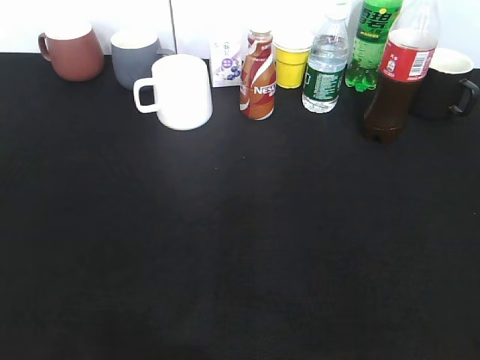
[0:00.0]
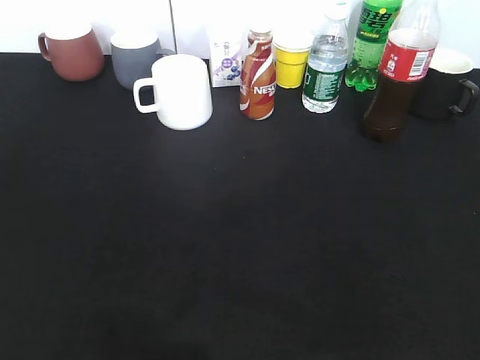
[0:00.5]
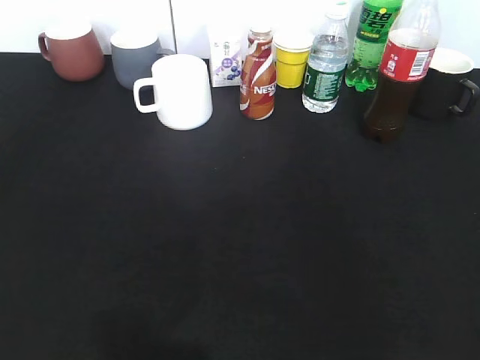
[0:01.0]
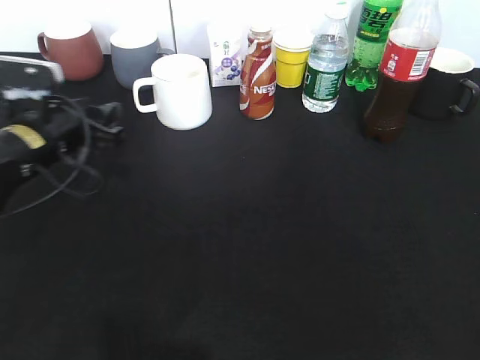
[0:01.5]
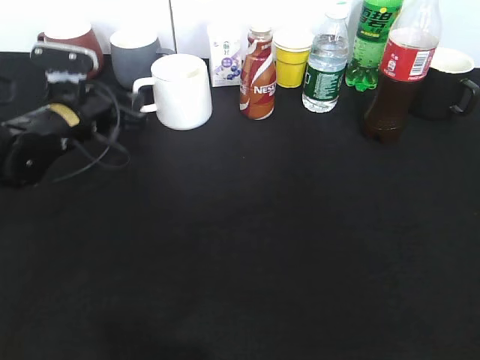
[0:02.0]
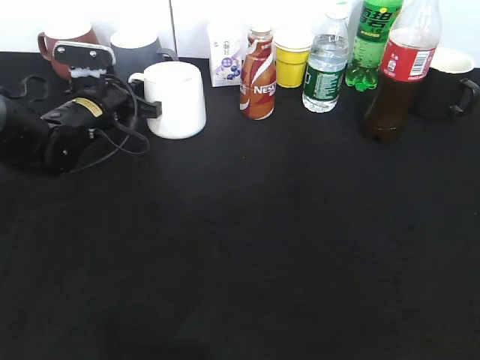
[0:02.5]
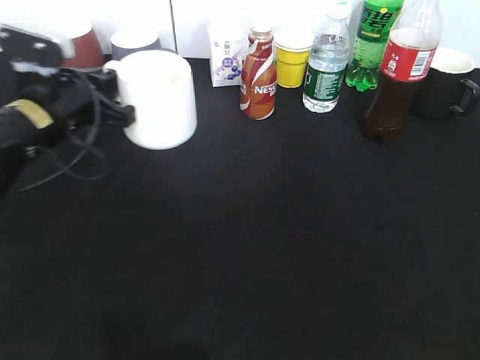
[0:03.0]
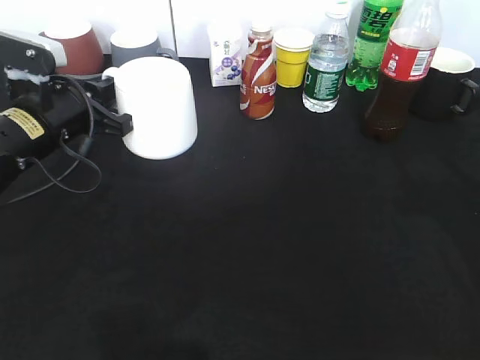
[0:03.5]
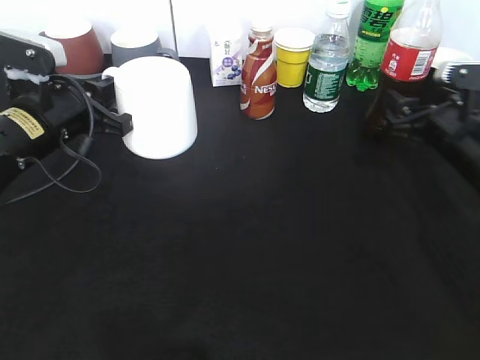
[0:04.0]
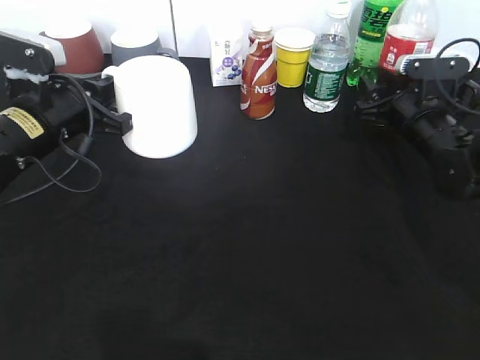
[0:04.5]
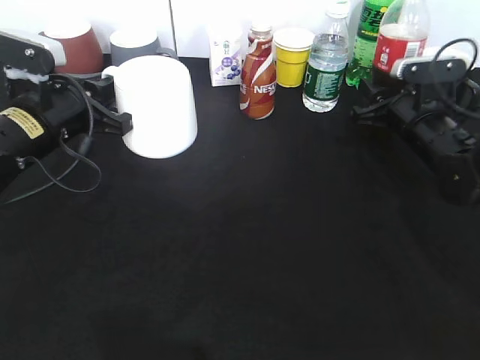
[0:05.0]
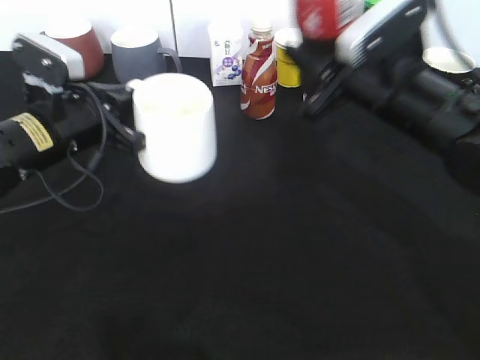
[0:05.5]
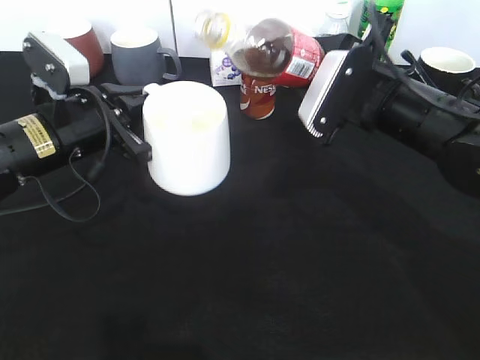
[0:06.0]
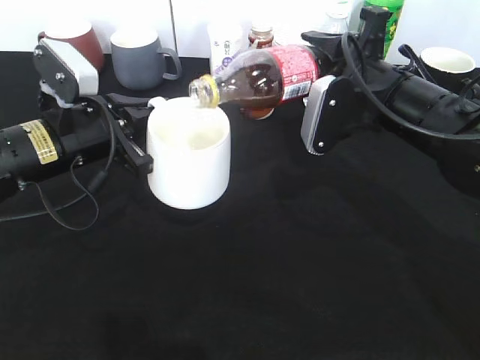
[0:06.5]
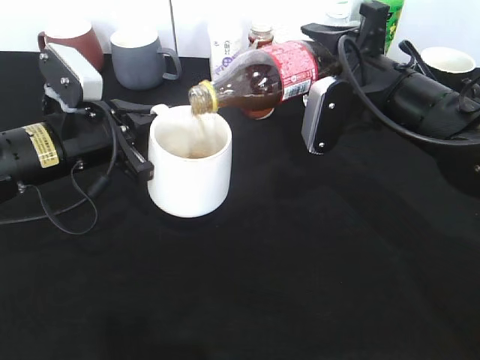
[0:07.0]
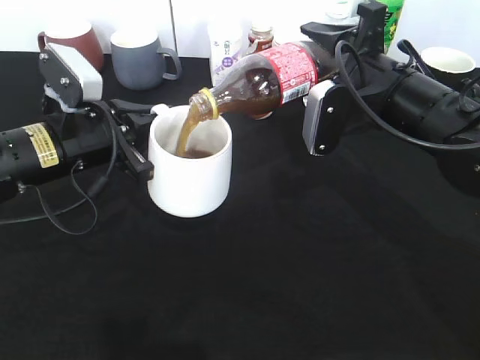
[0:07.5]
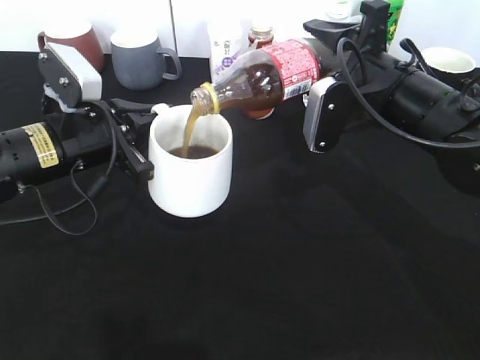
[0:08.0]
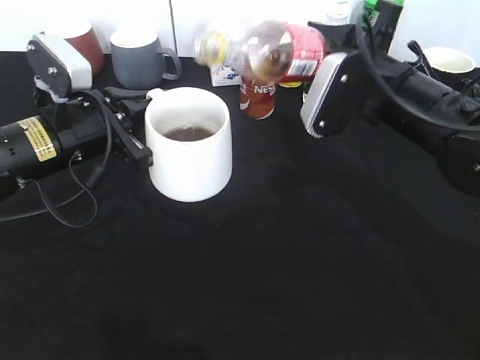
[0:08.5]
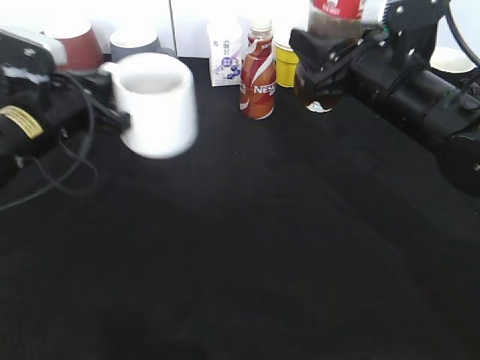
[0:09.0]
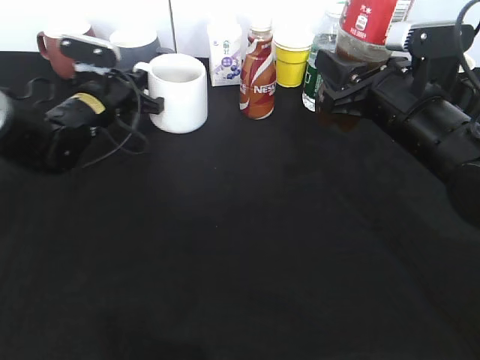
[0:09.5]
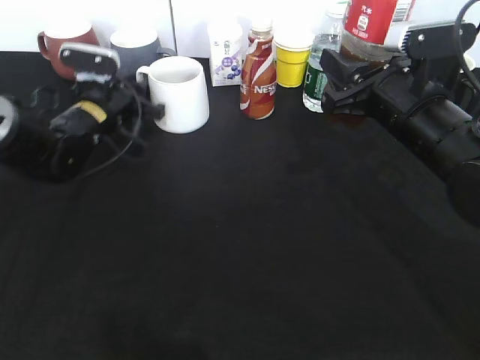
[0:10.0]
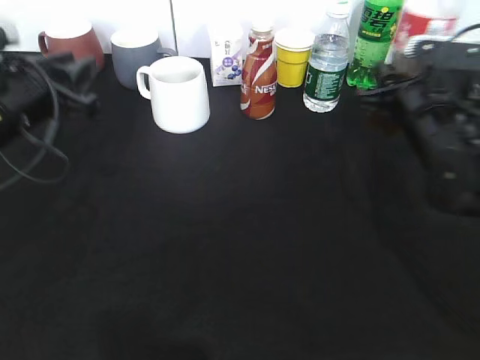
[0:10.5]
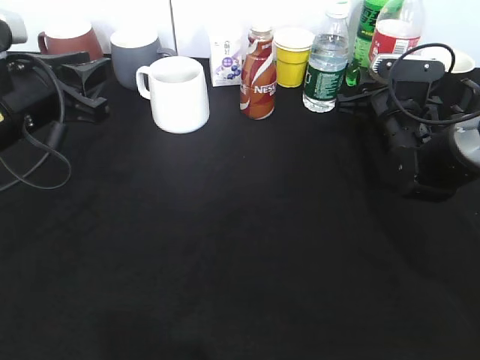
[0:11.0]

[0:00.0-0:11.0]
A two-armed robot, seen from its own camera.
Step, 0:00.0 to 0:02.5: Grasp the white cup with left gripper.
Step, 0:04.0 to 0:04.5: Grasp the bottle with cola with right gripper.
Step, 0:05.0 to 0:08.0: Pour the cola from bottle to cup with right gripper.
Step, 0:08.5 to 0:09.5: Place the white cup on the table with left gripper.
0:00.0 to 0:02.0: The left gripper travels forward by approximately 40 cm, and closes up.
0:02.0 to 0:03.5: The left gripper is displaced backward by about 5 cm, and closes its fingers; the right gripper moves forward, about 25 cm.
0:03.5 to 0:05.5: The right gripper travels to the left and forward by approximately 15 cm, and closes up.
0:09.0 to 0:11.0: The left gripper moves about 10 cm forward and comes back, and opens up. Meanwhile the right gripper moves downward, forward and to the right, approximately 15 cm.

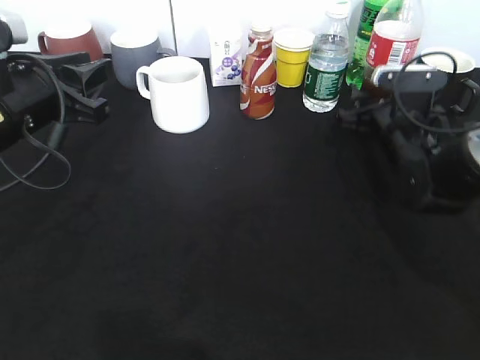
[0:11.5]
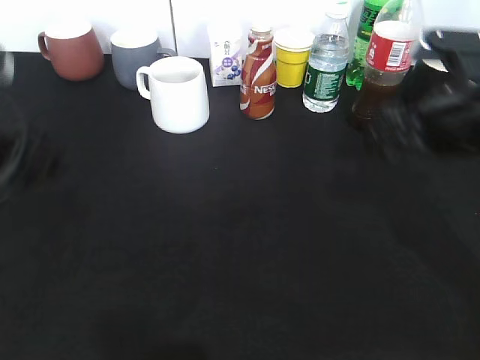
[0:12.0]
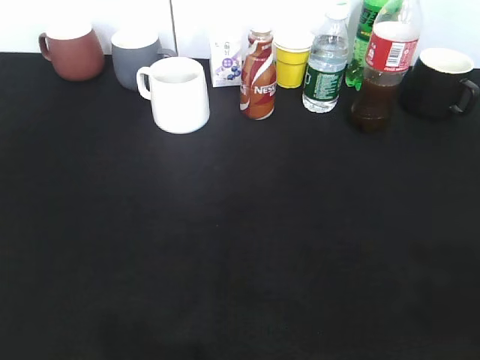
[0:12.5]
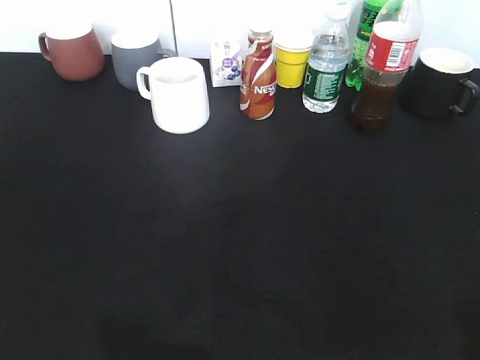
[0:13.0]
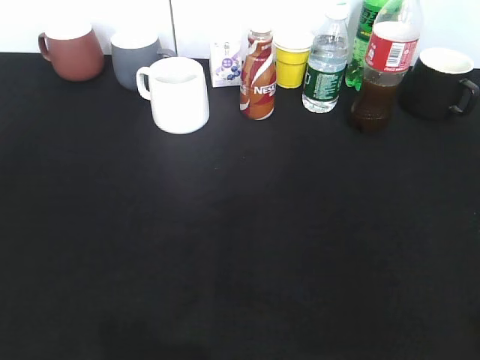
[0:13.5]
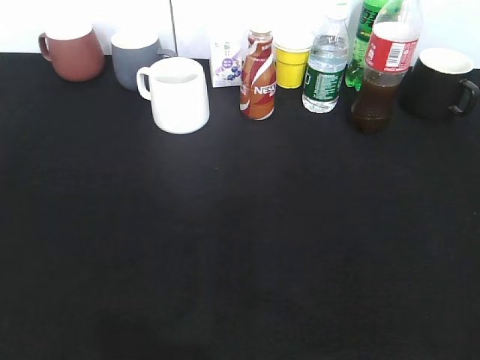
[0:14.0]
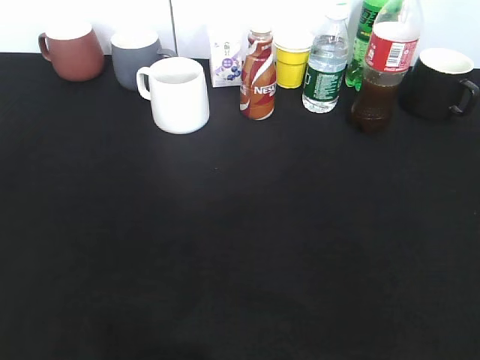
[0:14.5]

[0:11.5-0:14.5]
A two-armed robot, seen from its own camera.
0:11.5 to 0:13.0: The right gripper shifts some 40 cm backward and upward. The left gripper moves backward, approximately 25 cm.

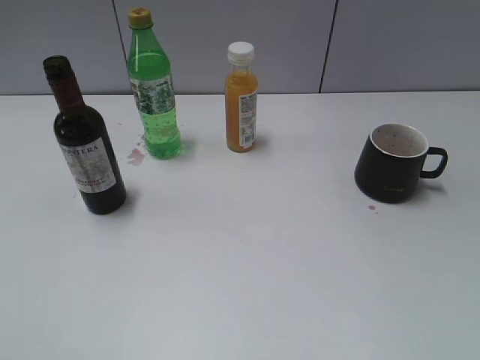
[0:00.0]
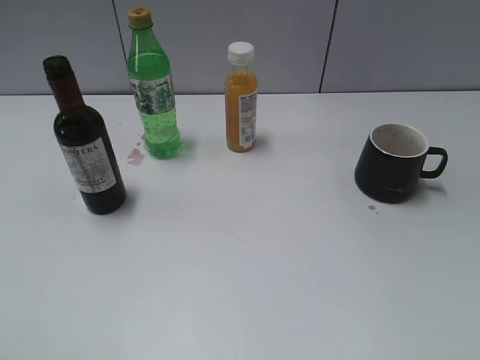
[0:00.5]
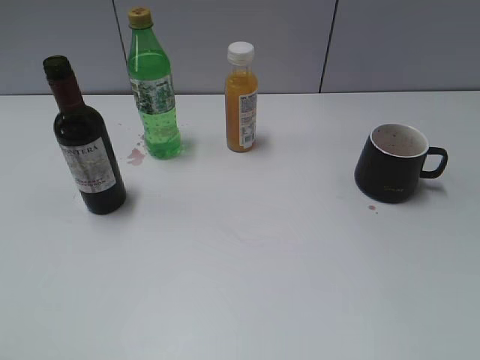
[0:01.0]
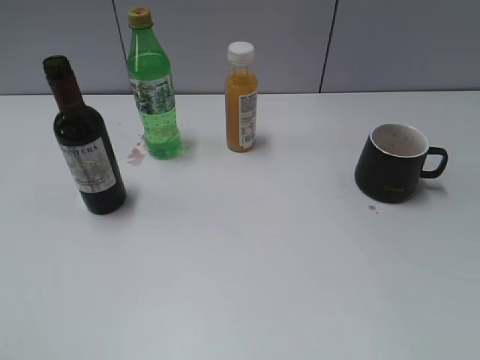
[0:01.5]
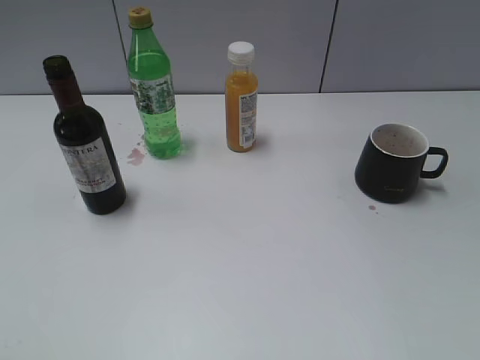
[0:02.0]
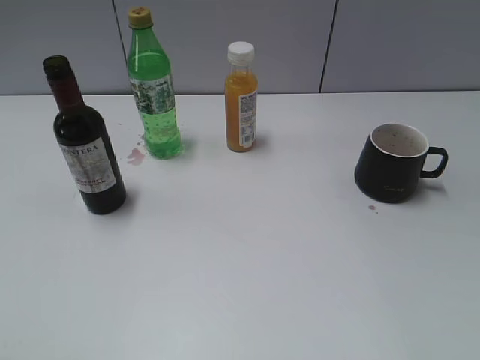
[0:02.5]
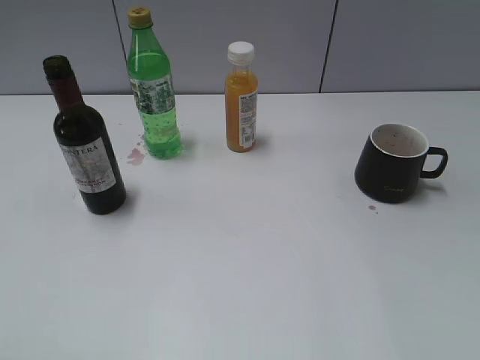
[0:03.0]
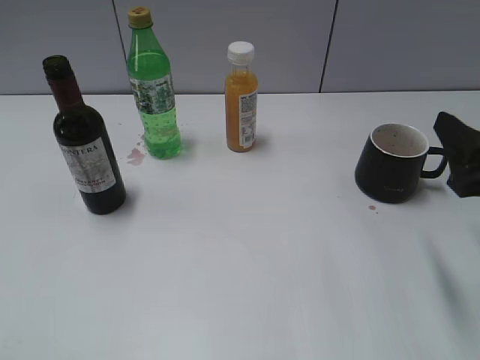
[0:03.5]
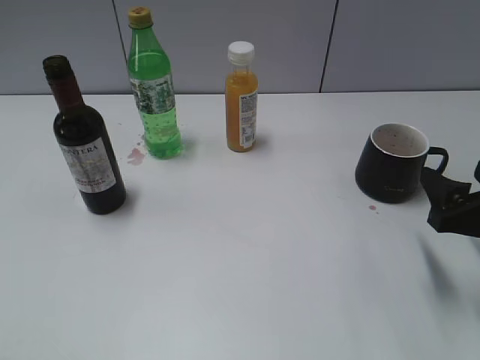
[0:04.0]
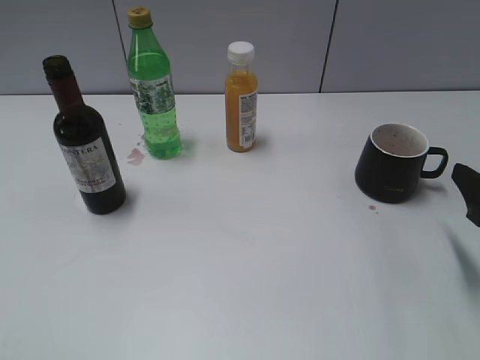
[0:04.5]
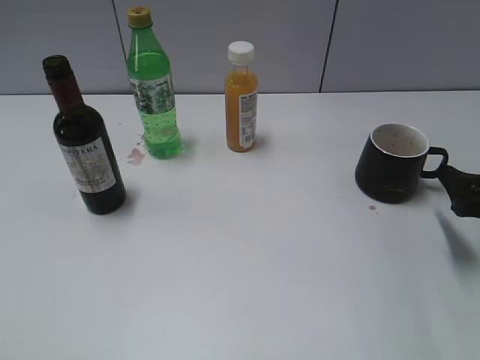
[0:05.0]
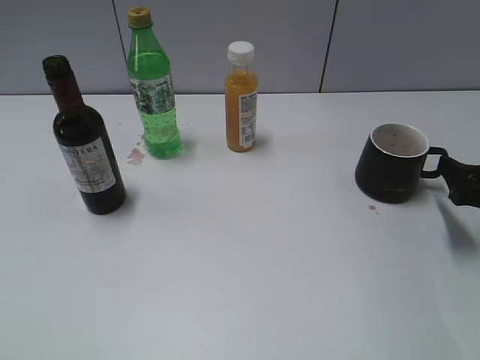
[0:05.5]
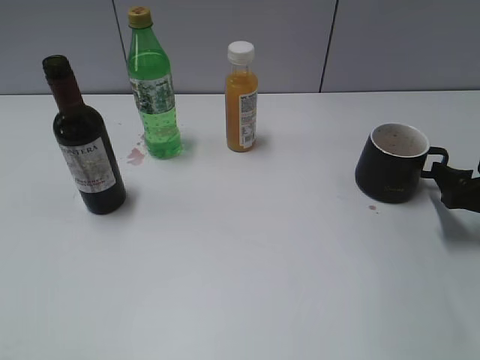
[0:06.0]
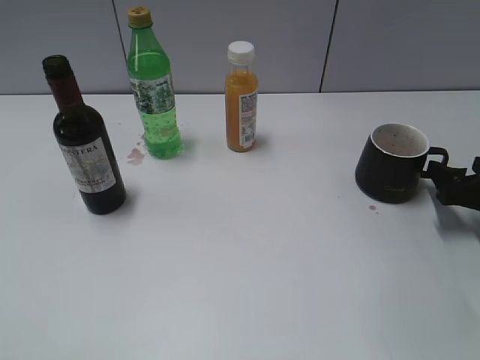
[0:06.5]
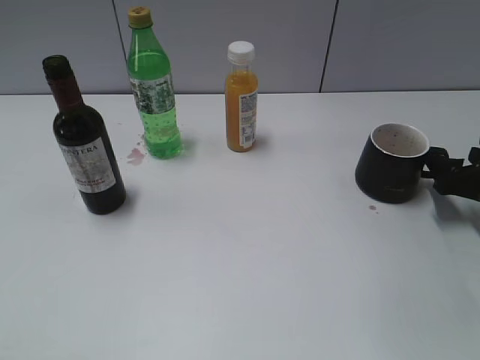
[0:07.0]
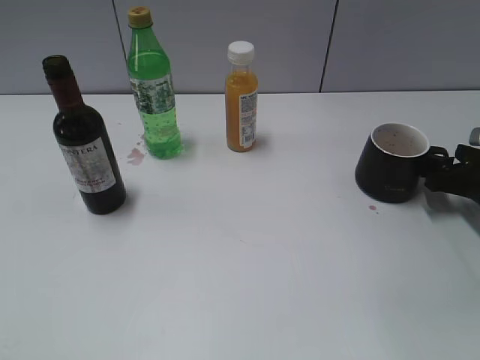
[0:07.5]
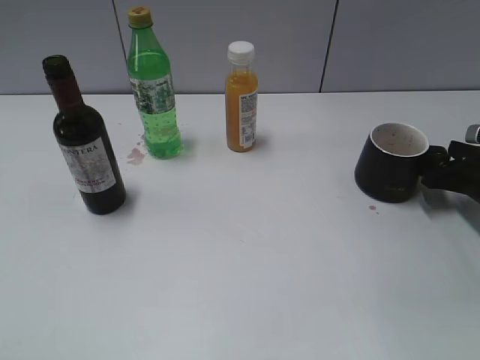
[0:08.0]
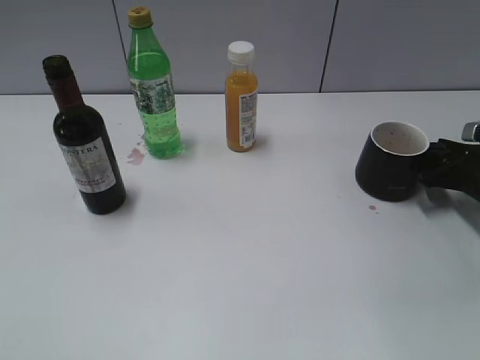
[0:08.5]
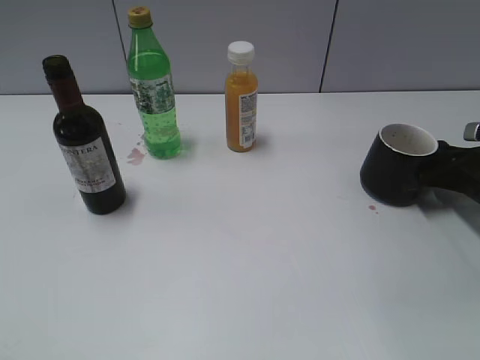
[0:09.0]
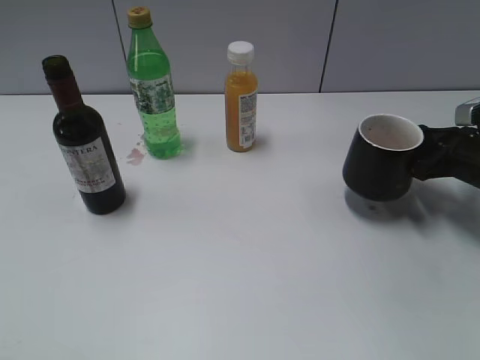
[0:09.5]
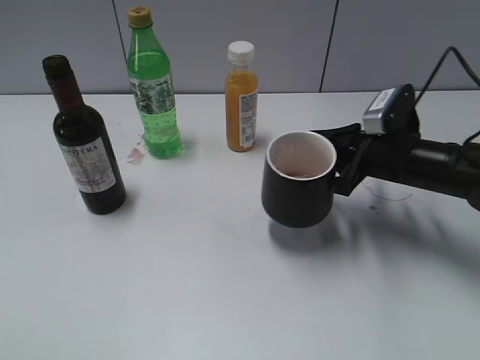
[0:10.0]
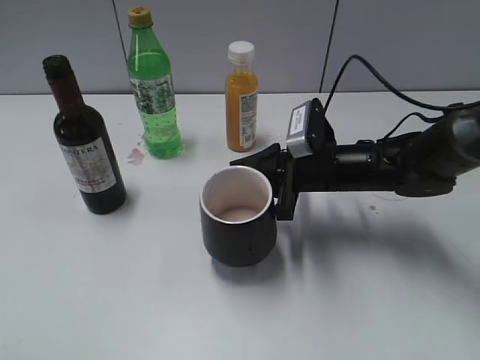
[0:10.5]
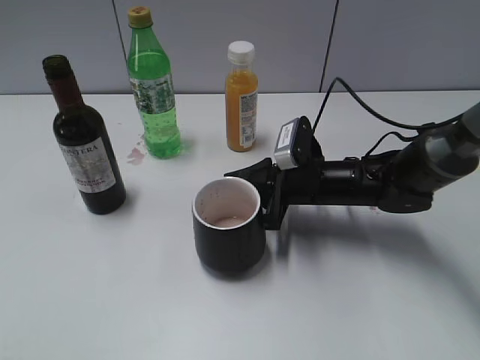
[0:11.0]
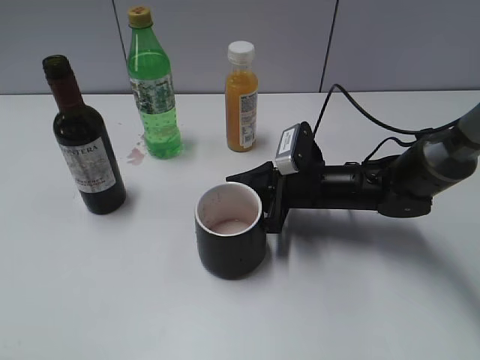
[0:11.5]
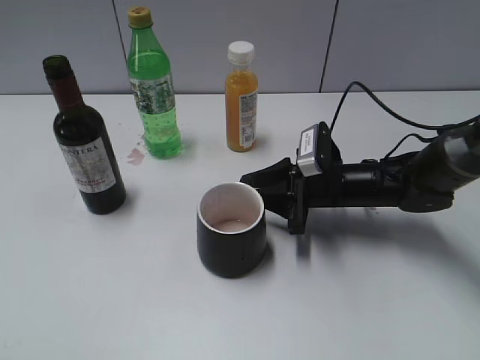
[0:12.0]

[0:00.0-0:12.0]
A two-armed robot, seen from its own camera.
Step, 0:03.5 to 0:09.0: Grasp the black cup with right gripper.
0:02.0 to 0:04.0: The right gripper travels forward and downward by about 25 cm.
0:04.0 to 0:06.0: The right gripper shifts approximately 10 cm forward, to the right and downward.
0:06.0 to 0:08.0: The right gripper goes some 5 cm forward.
0:08.0 to 0:10.0: The right gripper goes some 15 cm to the left, and closes.
0:10.0 to 0:12.0: The right gripper heads to the left and downward, covering some 10 cm, and opens up.
